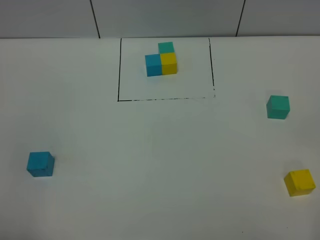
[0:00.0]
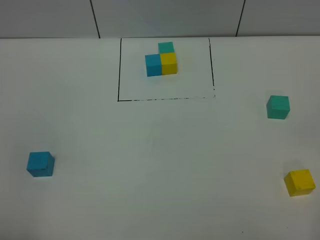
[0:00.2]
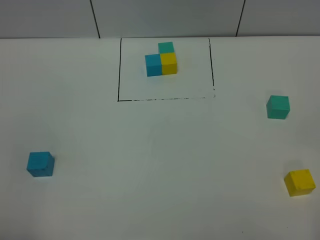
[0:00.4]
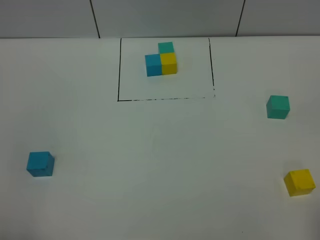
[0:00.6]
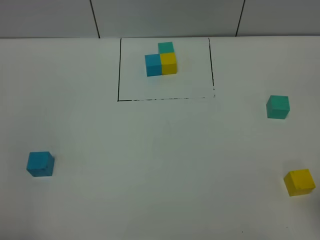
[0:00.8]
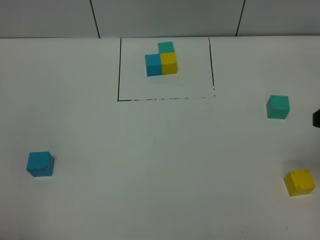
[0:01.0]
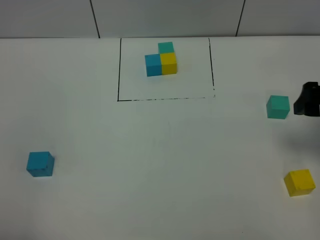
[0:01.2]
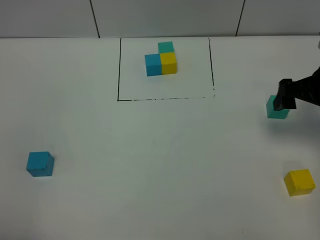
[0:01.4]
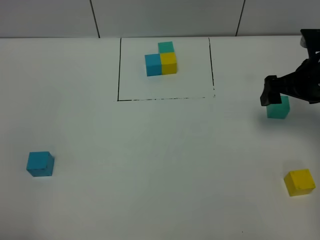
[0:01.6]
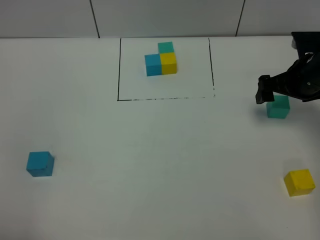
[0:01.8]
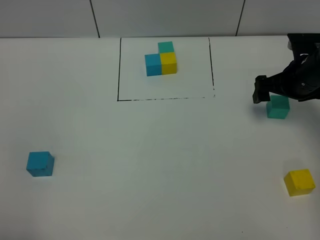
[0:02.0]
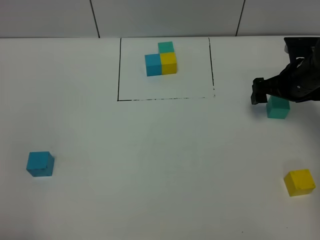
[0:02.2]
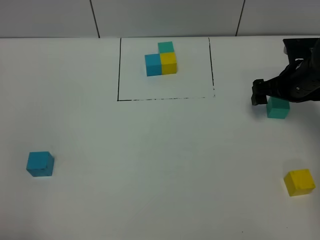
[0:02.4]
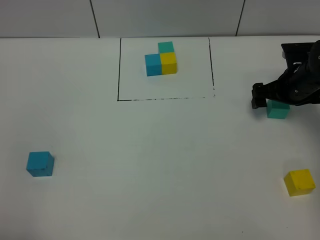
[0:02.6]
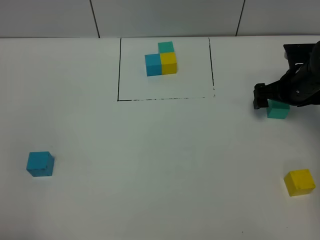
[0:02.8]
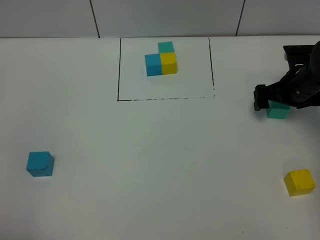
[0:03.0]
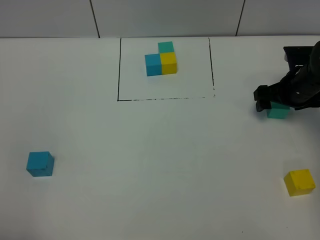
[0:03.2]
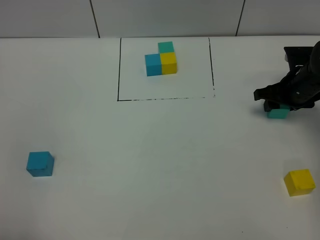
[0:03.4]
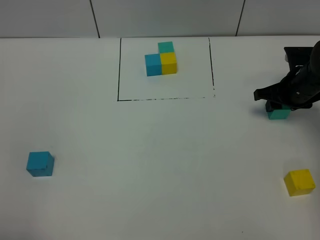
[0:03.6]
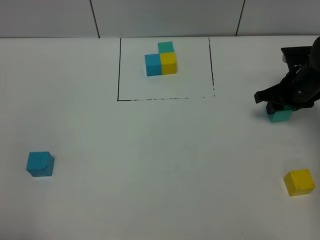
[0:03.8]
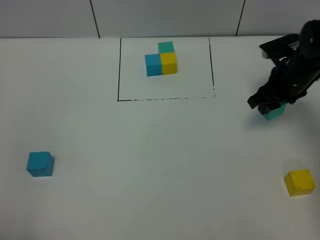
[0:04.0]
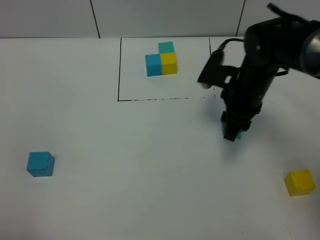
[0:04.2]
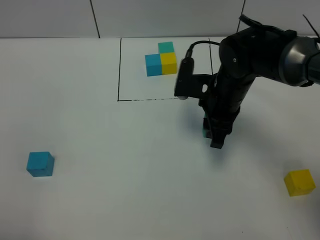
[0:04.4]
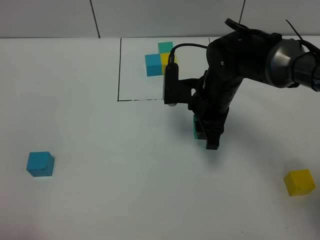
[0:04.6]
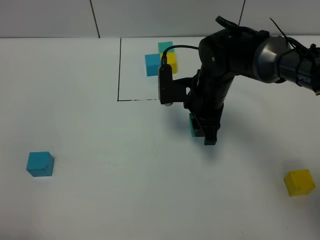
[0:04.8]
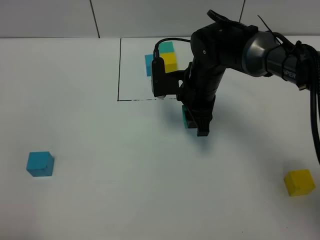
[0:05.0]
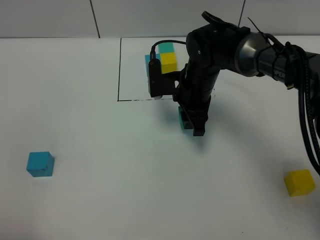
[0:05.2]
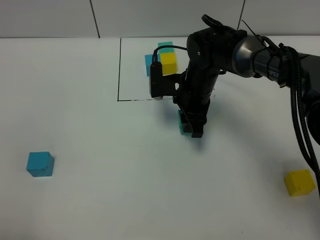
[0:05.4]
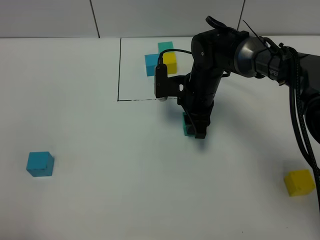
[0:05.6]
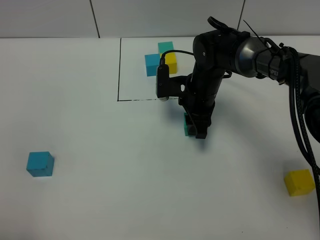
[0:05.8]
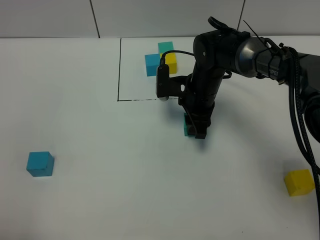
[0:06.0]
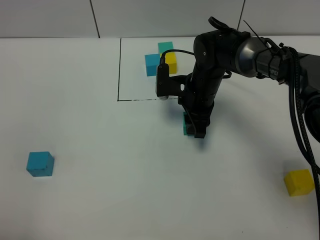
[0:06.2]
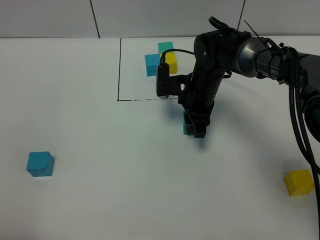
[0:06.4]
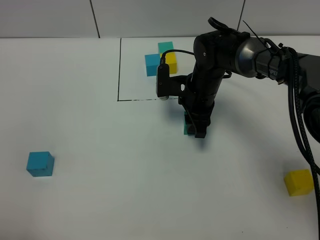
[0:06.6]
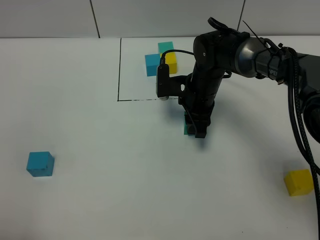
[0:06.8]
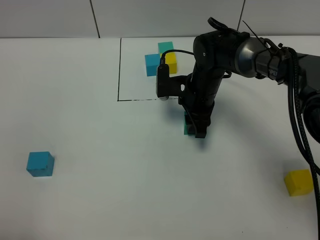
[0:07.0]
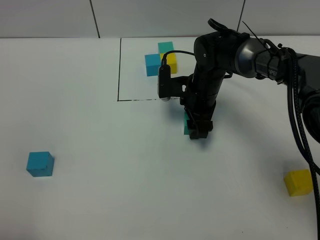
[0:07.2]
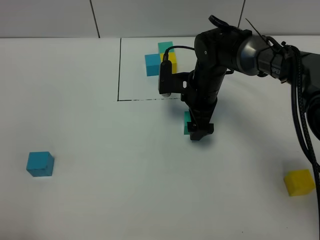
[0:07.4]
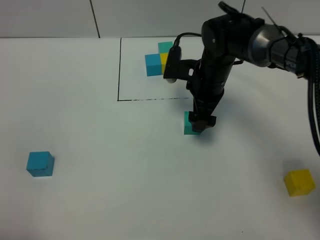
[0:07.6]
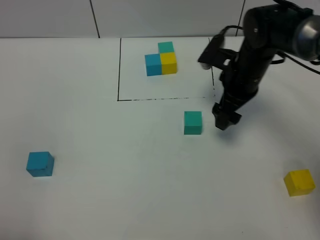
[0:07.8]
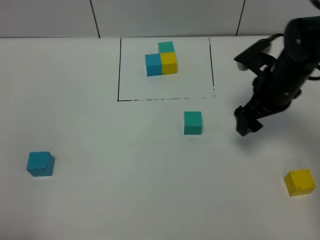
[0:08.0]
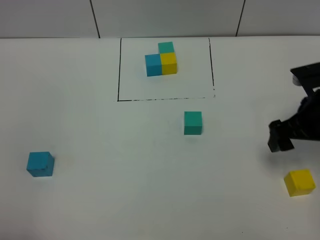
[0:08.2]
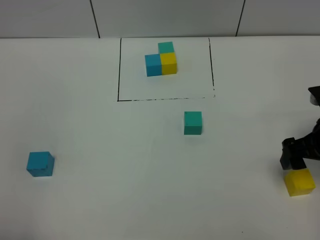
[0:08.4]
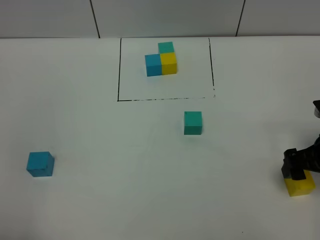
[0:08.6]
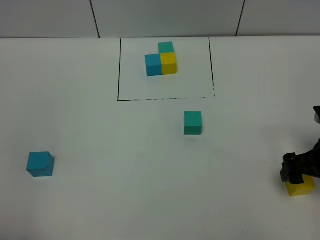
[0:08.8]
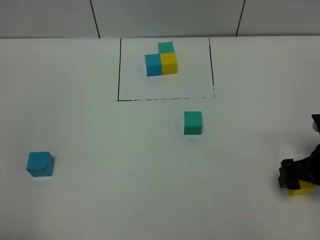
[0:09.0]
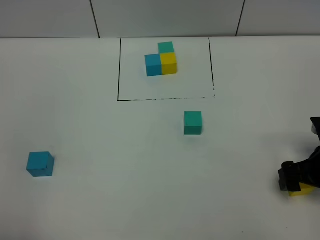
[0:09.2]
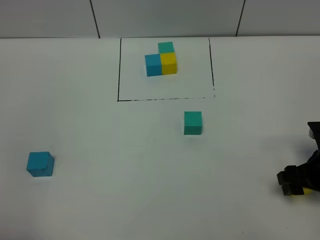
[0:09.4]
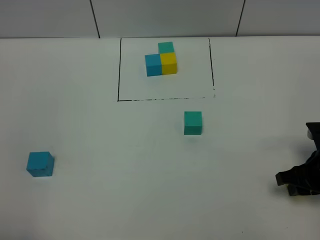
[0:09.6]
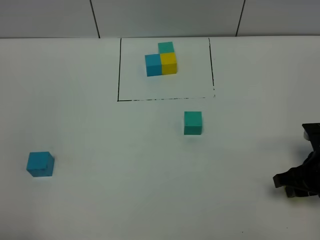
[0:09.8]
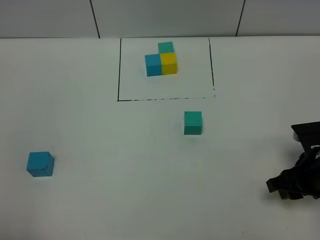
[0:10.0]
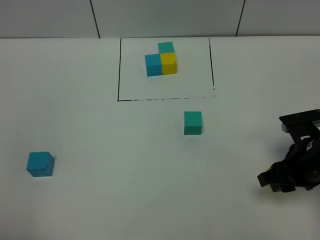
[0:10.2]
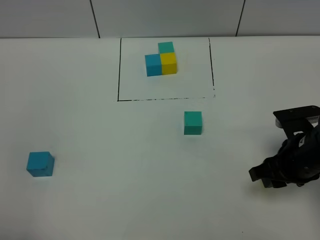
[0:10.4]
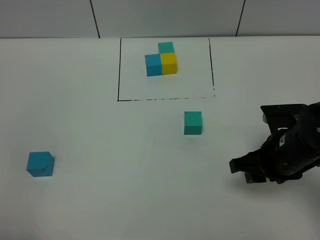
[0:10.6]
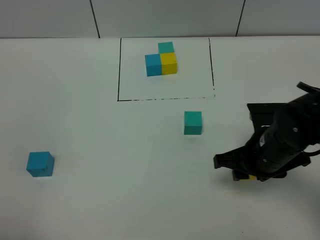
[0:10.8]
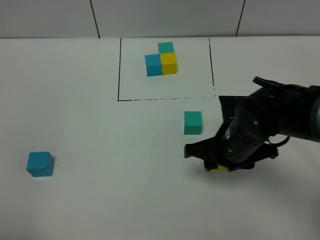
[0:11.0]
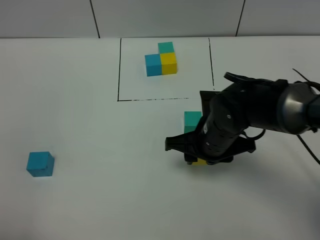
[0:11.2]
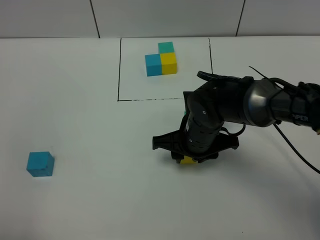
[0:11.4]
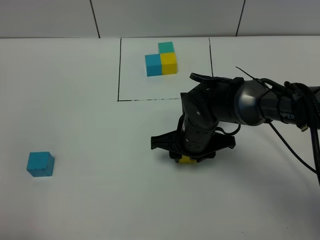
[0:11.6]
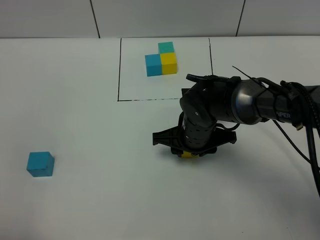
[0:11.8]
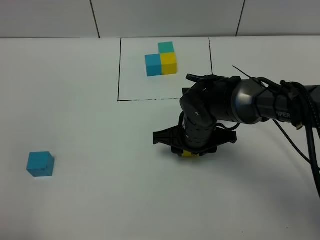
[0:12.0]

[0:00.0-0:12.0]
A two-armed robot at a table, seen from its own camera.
Task of the whole recording: According to the building block template in front, assemble the scattered blocks together.
Step, 0:00.0 to 0:07.2: Put the green build block in the center of the table.
0:00.0 to 0:01.6: The right gripper heads forward, covering roughly 35 cm.
0:01.6 to 0:03.0: The right gripper travels downward by some 10 cm.
0:03.0 to 0:04.4: The right gripper heads to the left, covering some 20 cm, and closes.
0:04.4 to 0:06.0: The right gripper goes approximately 10 cm forward and downward.
0:06.0 to 0:07.6: The right gripper opens.
0:07.6 to 0:09.0: The right gripper heads to the right and backward, covering some 25 cm.
0:09.0 to 0:10.4: The right gripper travels to the left by approximately 5 cm, and closes.
0:10.4 to 0:12.0: The right gripper moves to the left and forward, approximately 20 cm.

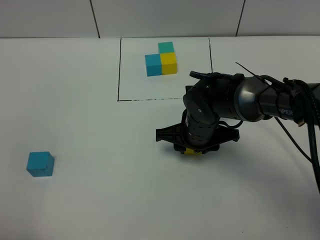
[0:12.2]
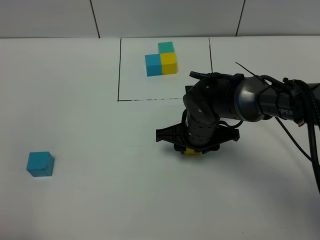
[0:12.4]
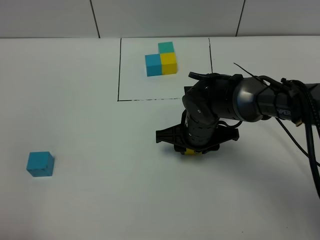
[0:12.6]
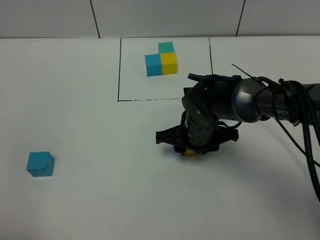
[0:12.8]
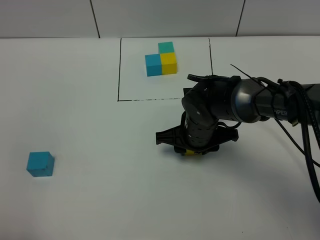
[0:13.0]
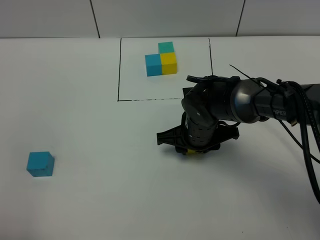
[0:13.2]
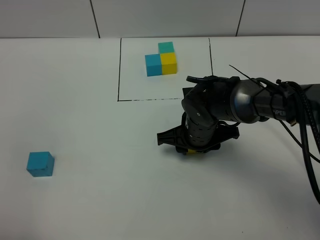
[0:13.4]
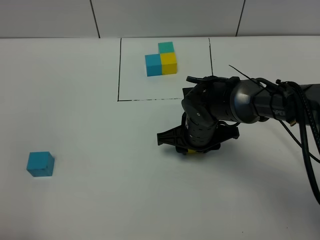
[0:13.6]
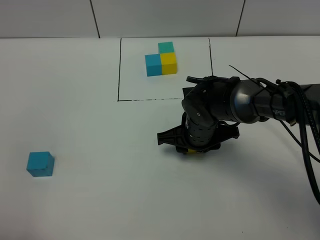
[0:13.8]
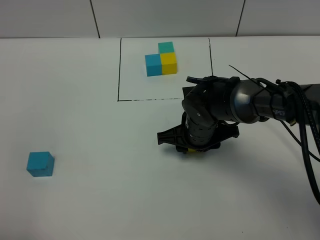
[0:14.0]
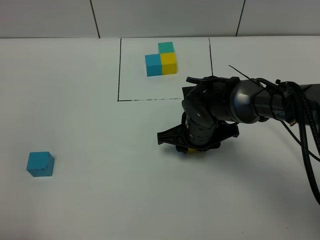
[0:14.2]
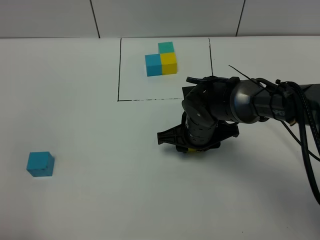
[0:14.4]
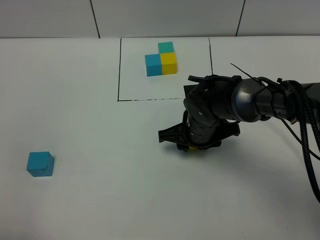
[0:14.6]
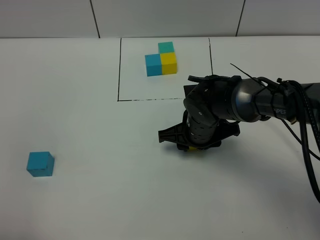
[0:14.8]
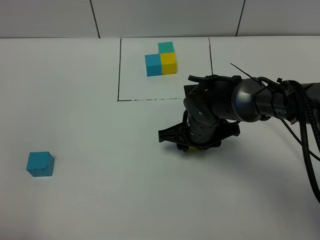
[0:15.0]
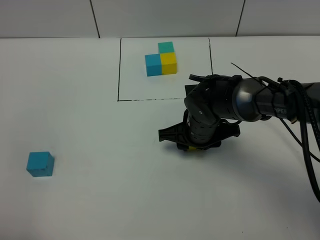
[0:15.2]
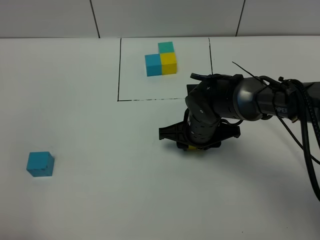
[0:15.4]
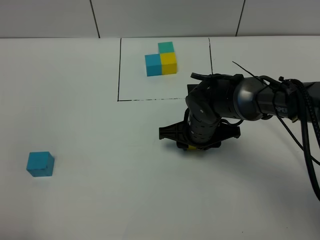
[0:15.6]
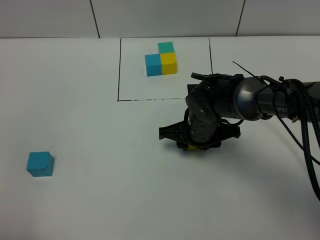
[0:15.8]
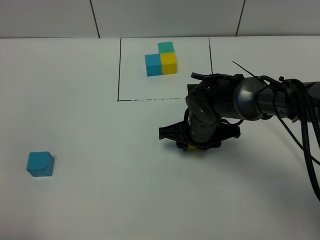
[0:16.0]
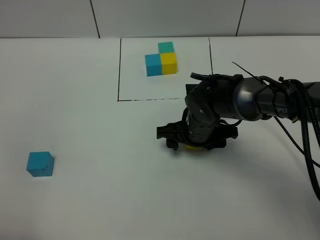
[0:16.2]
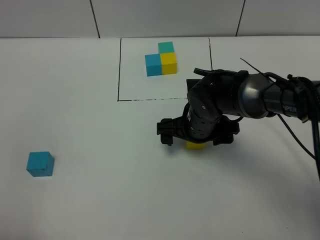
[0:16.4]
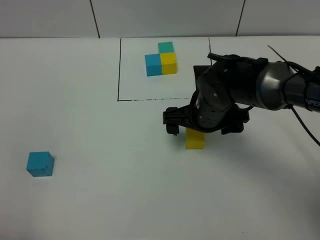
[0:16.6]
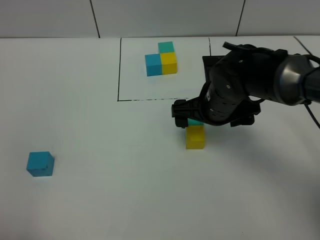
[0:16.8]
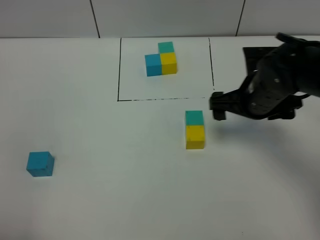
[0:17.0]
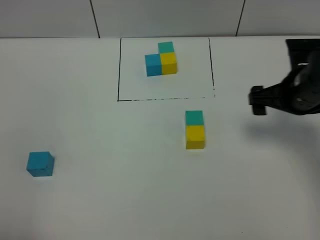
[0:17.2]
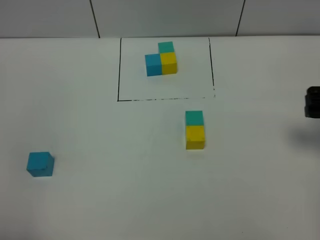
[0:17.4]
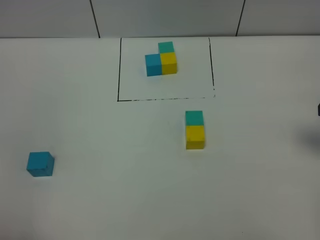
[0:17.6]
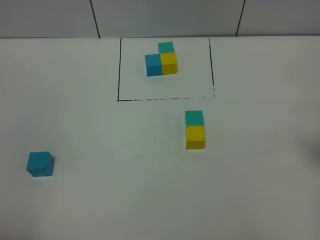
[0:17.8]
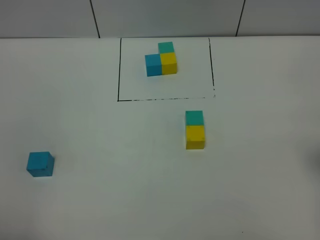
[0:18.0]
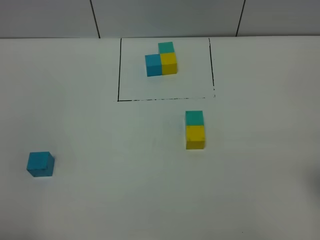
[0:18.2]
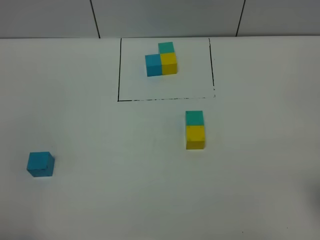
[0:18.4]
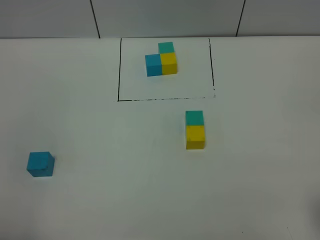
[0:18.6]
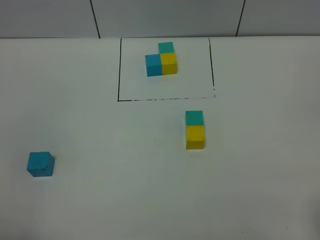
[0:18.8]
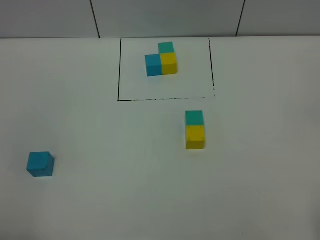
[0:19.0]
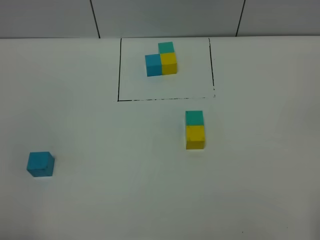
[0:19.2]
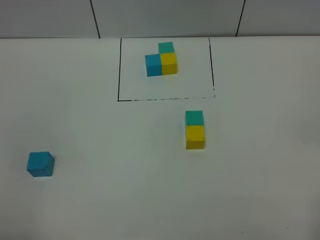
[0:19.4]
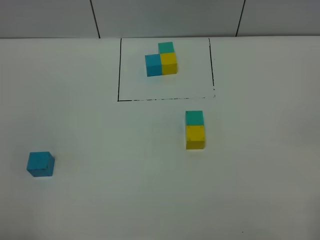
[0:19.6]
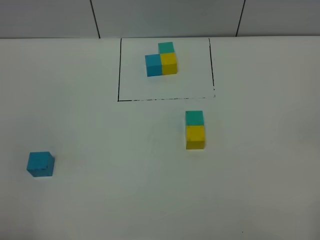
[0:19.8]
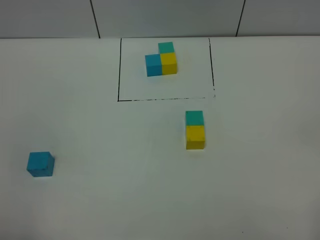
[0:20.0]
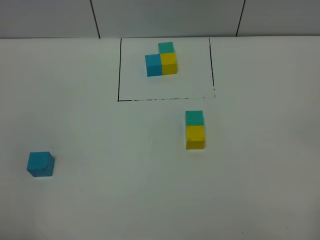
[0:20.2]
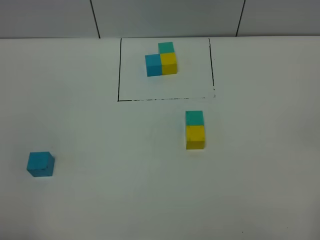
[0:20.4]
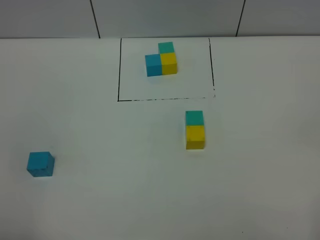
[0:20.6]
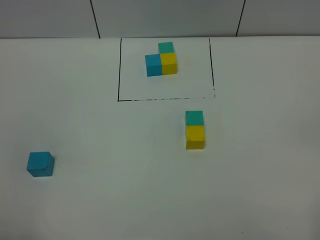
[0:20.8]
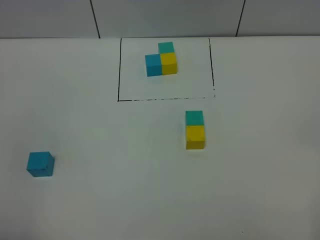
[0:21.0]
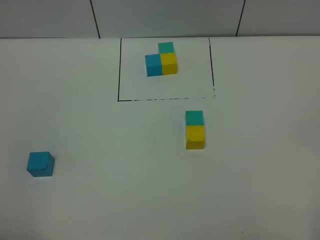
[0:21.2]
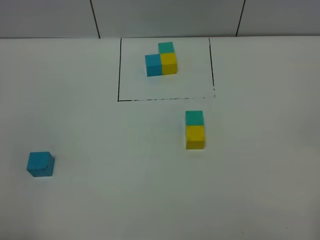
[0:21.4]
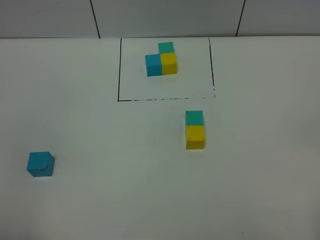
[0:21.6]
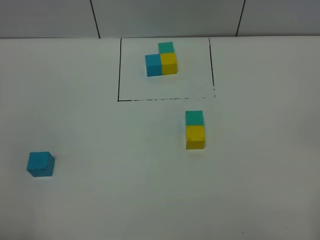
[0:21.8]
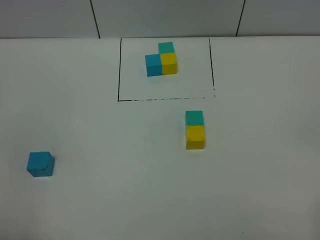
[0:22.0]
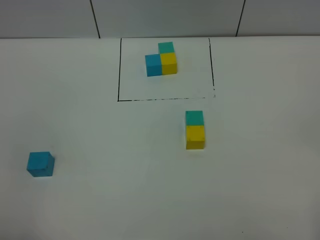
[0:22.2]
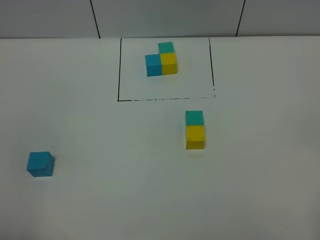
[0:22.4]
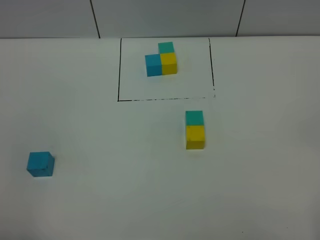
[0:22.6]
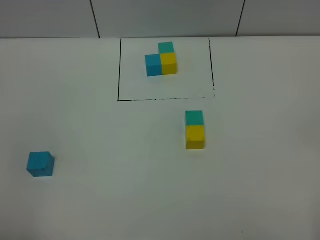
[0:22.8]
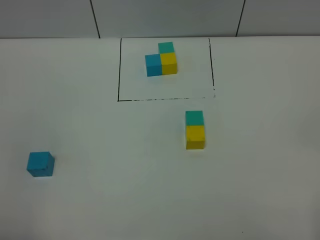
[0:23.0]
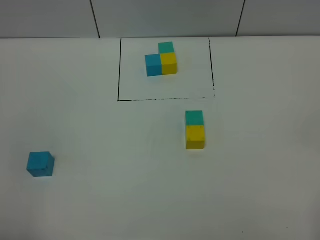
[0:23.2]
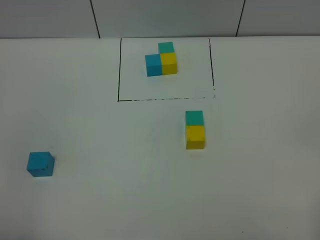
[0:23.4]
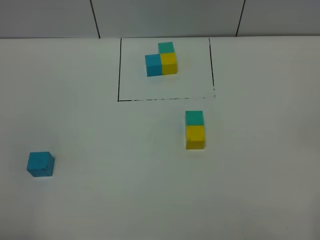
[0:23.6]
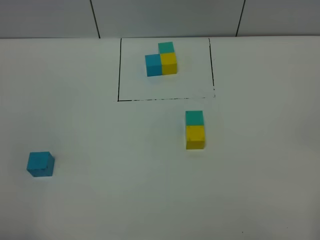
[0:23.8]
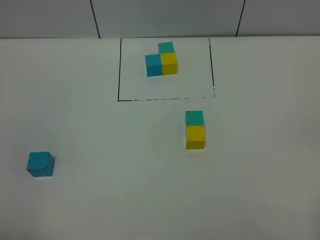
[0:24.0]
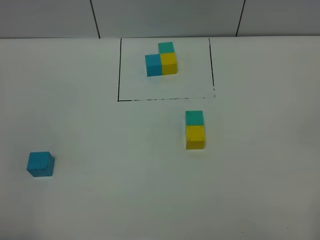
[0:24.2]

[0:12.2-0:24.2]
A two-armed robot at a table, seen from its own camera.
Task of the whole recording: According to the building block template in front, assemble the scattered blocks together.
Step, 0:12.2 to 0:16.0: Put the yellow build block on the behind of the green build block.
0:12.2 to 0:13.8: Both grippers stay about where they are.
0:13.8 to 0:15.2: Both grippers stay put.
0:15.2 to 0:16.6: The right gripper moves upward, roughly 5 cm, and opens its fingers.
0:16.6 to 0:18.2: The right gripper moves to the right, backward and upward, roughly 30 cm.
0:19.8 to 0:24.2: Both grippers stay put.
